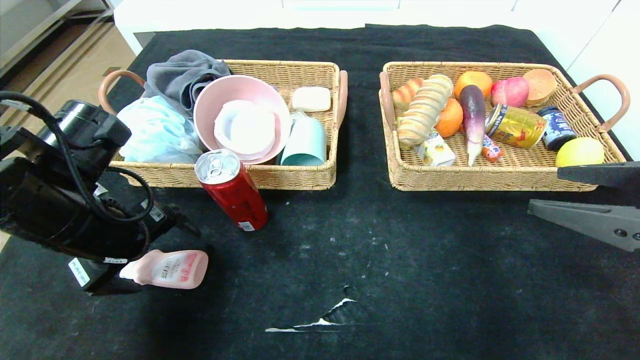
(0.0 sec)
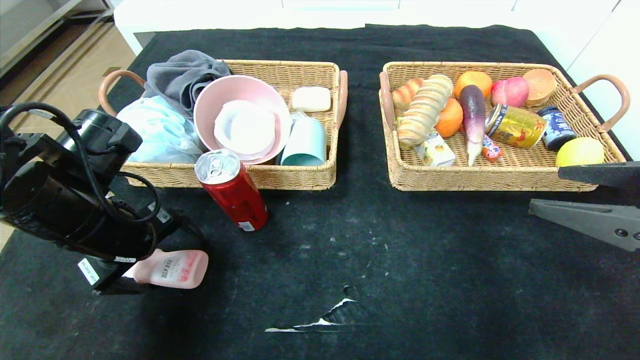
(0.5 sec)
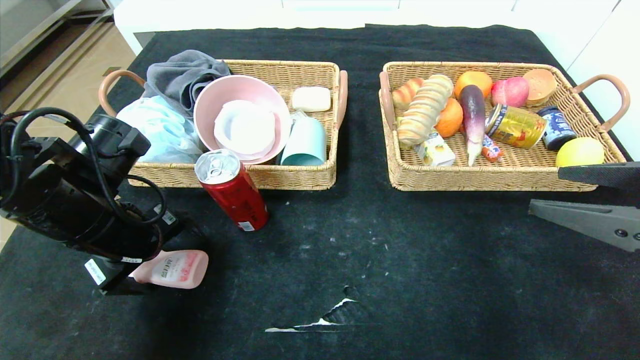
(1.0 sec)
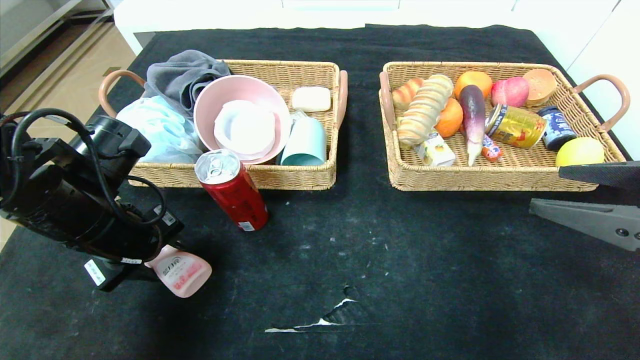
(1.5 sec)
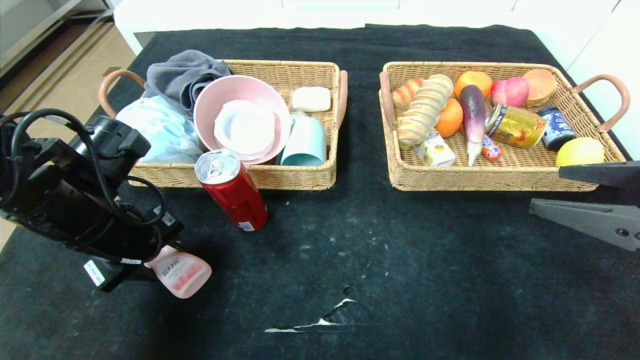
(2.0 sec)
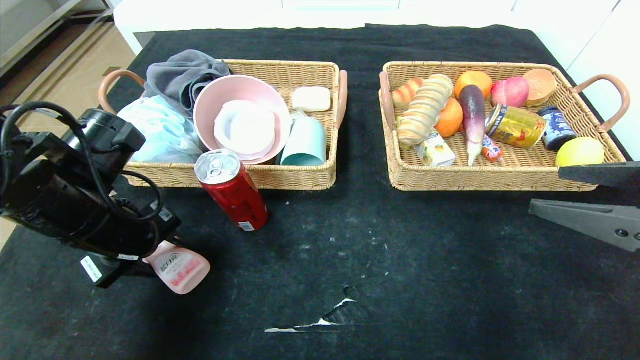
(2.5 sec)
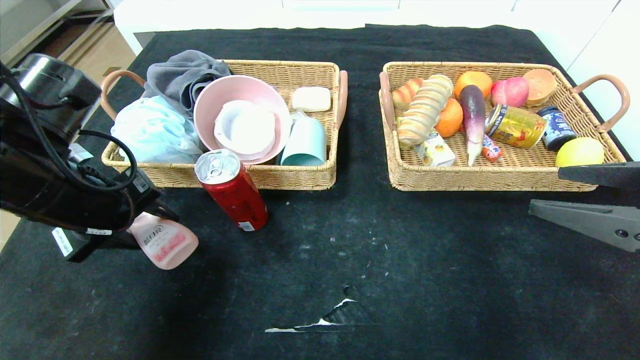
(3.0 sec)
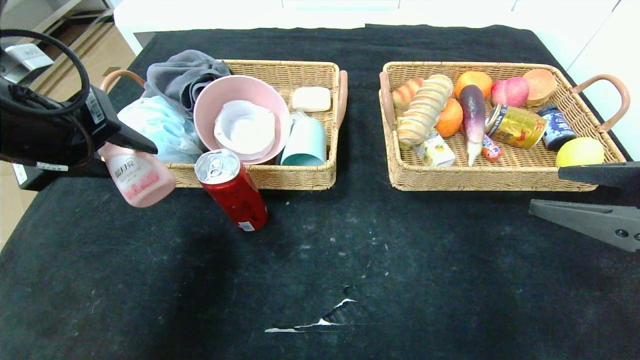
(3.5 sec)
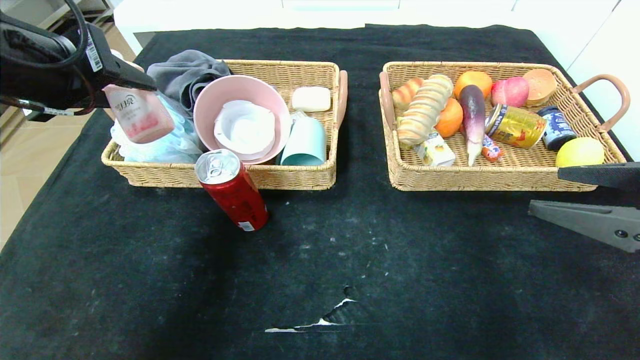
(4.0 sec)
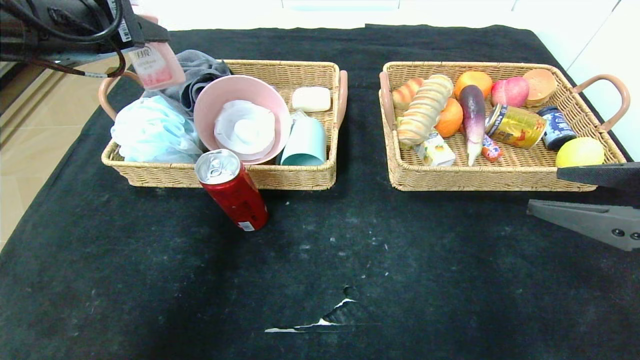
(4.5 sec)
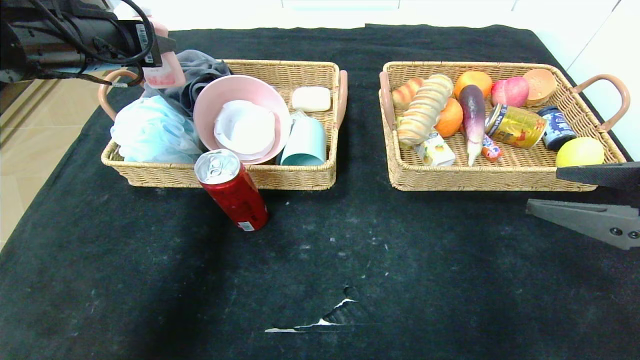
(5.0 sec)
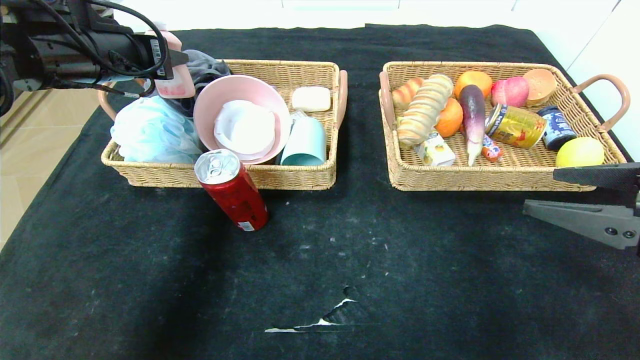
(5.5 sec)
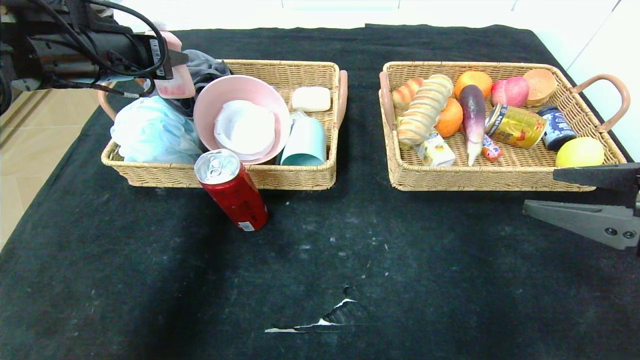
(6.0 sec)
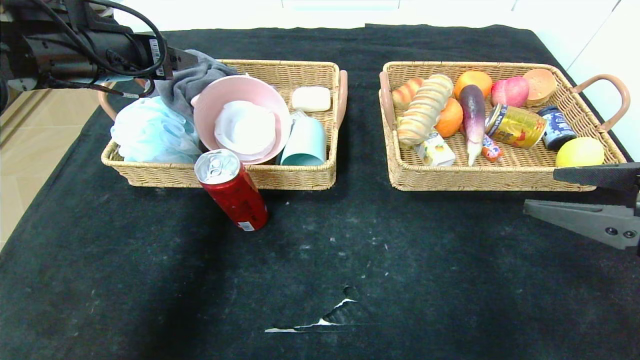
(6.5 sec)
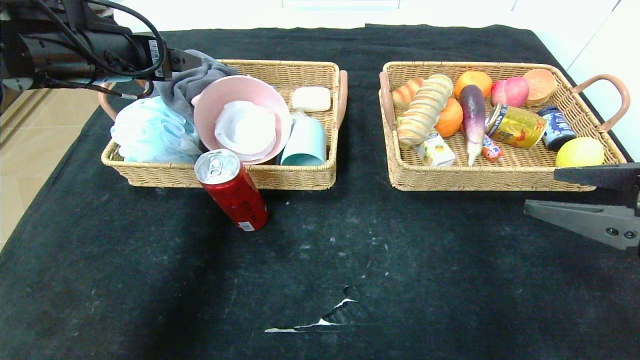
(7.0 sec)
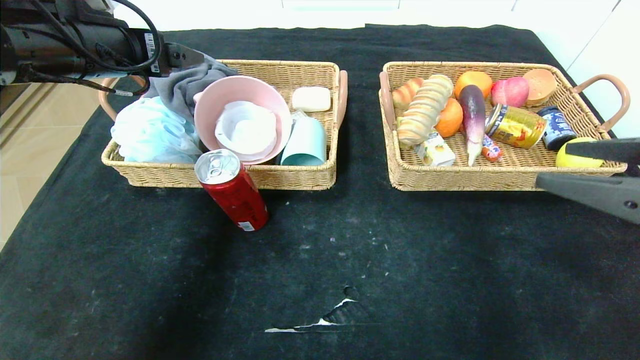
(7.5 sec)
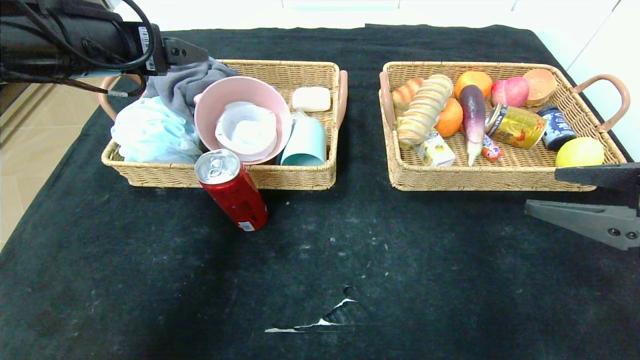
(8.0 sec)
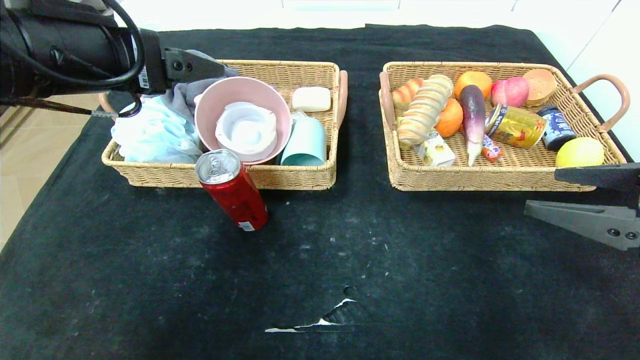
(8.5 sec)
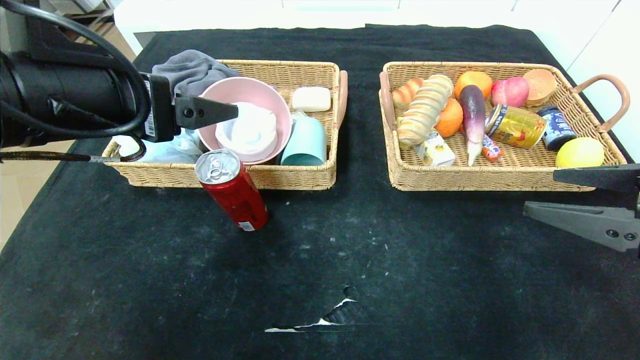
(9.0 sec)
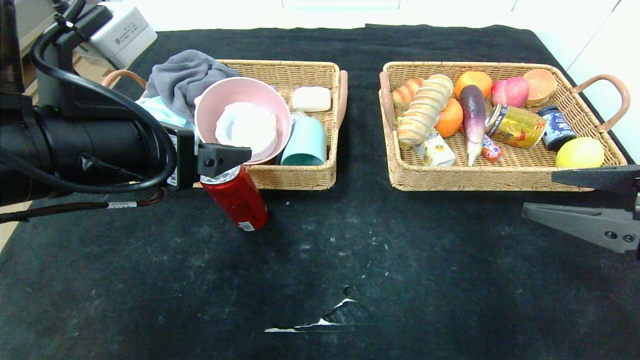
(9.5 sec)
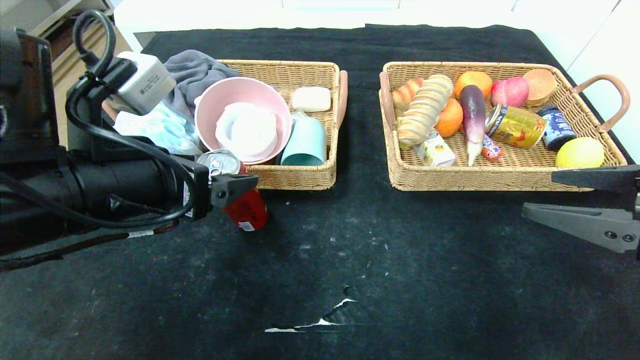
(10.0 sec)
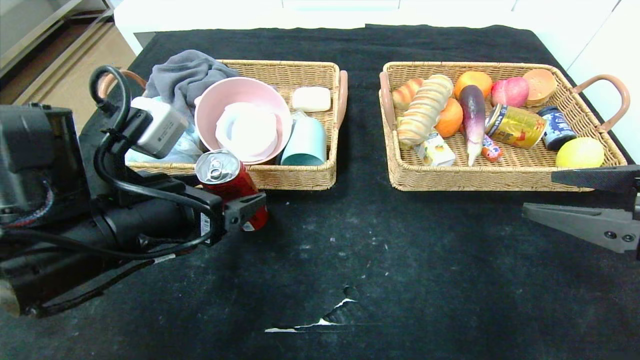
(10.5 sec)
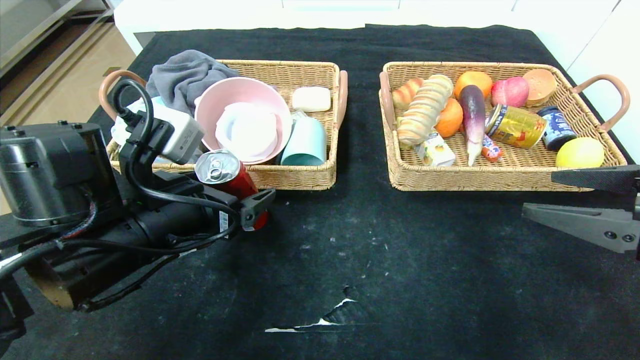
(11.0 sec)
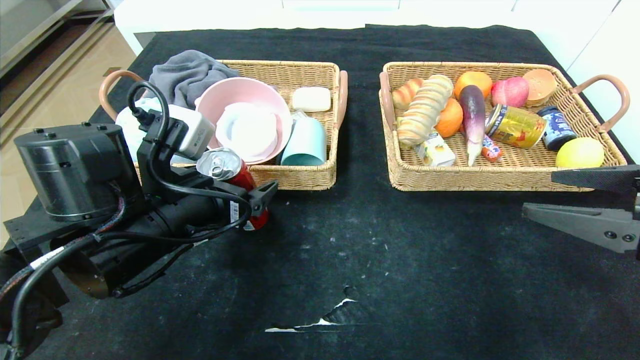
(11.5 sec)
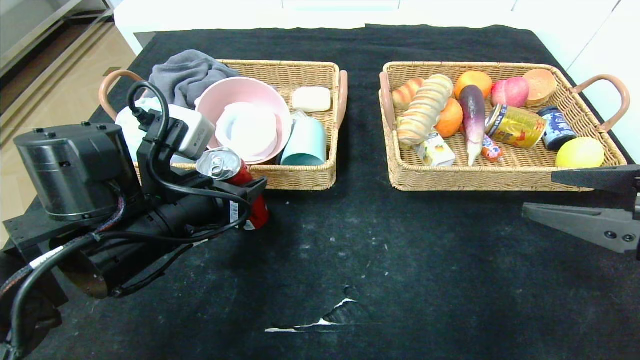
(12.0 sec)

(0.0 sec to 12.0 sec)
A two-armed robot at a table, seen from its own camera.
Step, 0.0 sec - 6.5 sec: Grasp the detergent and put it in the left basket.
0.0 sec - 2.0 sec: The left gripper closes.
2.0 sec - 4.0 sec: The left gripper heads upward, covering about 15 cm.
4.0 sec - 6.0 sec: The left gripper shifts approximately 10 cm forward.
6.0 sec - 8.0 sec: The left gripper shifts by some 5 cm, and opens its fingers.
8.0 sec - 10.0 sec: The left gripper heads downward, backward and to the right, covering roughly 15 cm.
10.0 sec - 12.0 sec: The left gripper goes about 5 cm downward, and closes up.

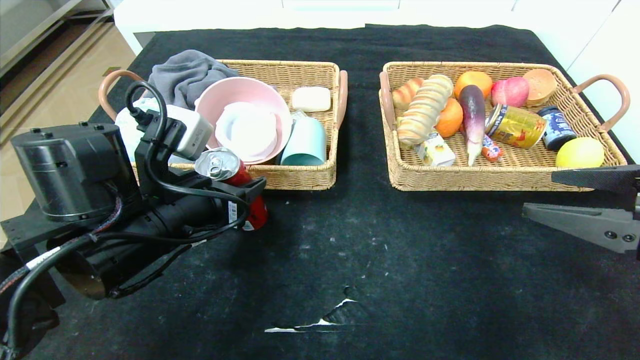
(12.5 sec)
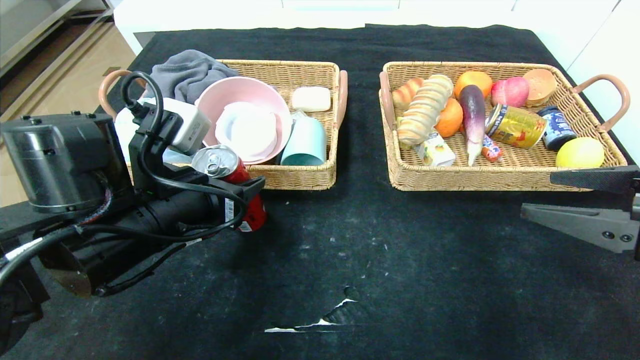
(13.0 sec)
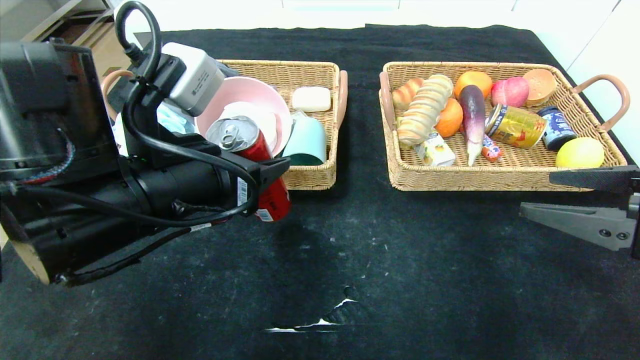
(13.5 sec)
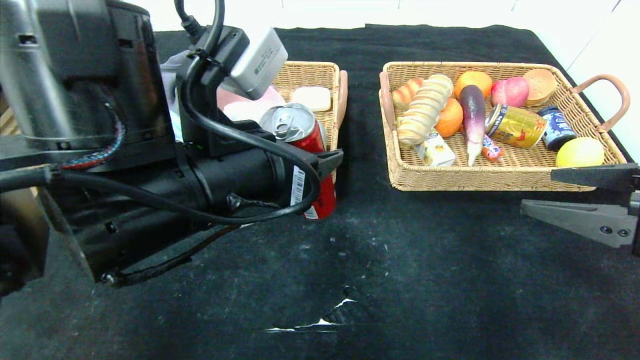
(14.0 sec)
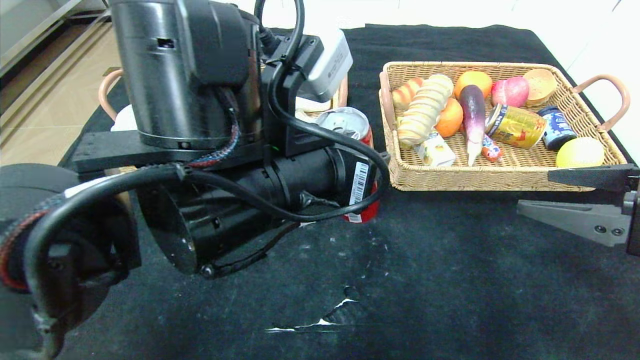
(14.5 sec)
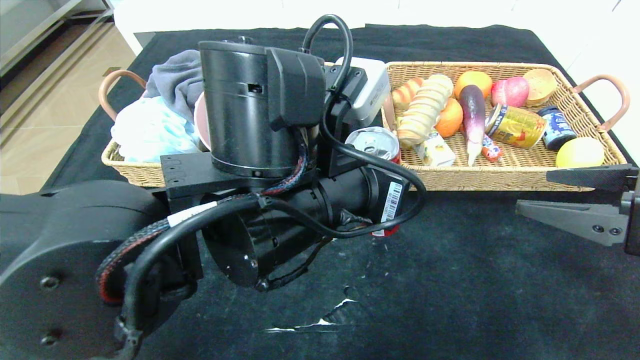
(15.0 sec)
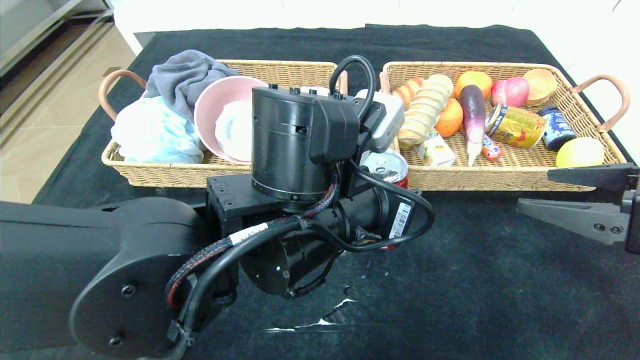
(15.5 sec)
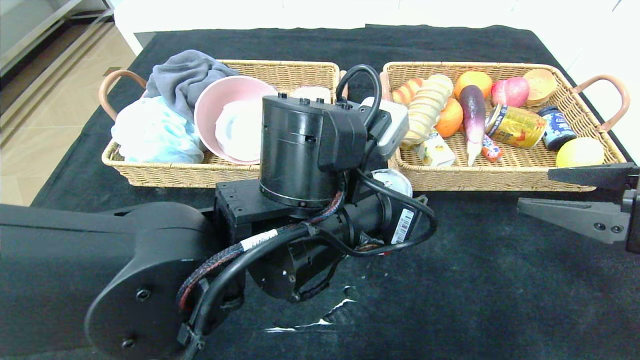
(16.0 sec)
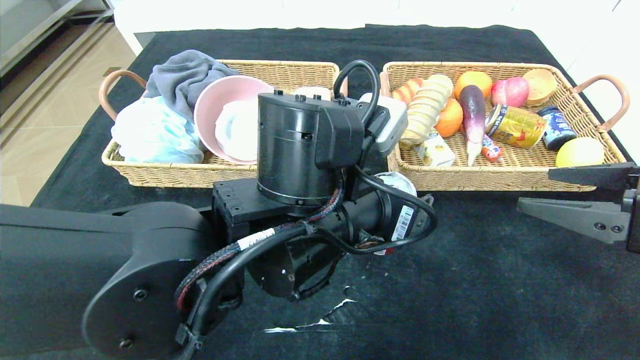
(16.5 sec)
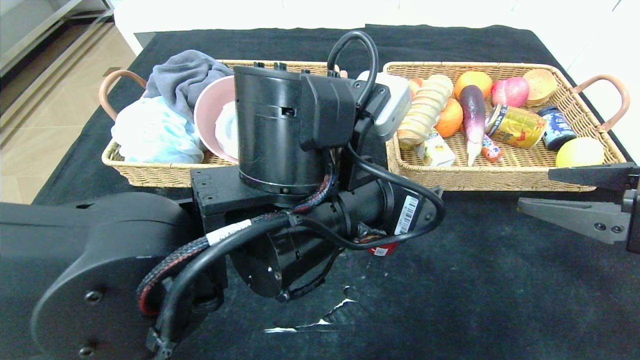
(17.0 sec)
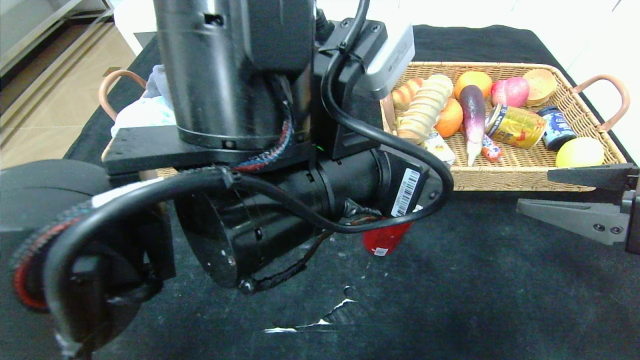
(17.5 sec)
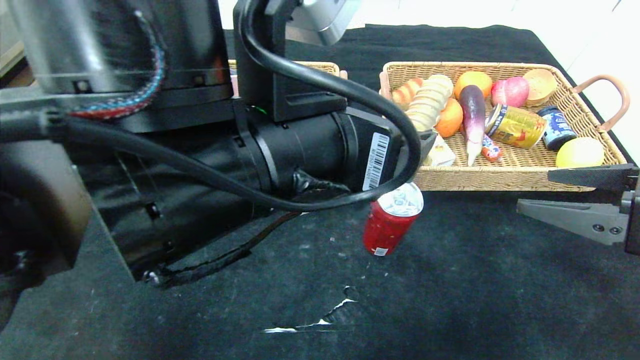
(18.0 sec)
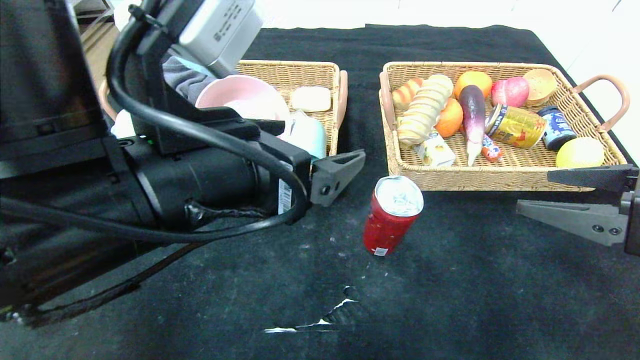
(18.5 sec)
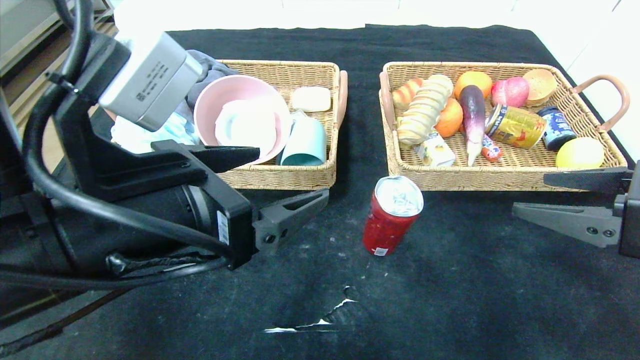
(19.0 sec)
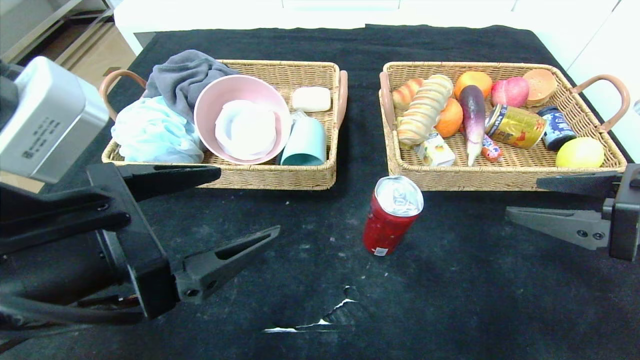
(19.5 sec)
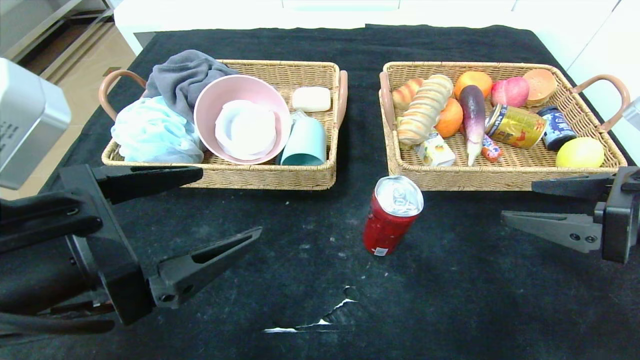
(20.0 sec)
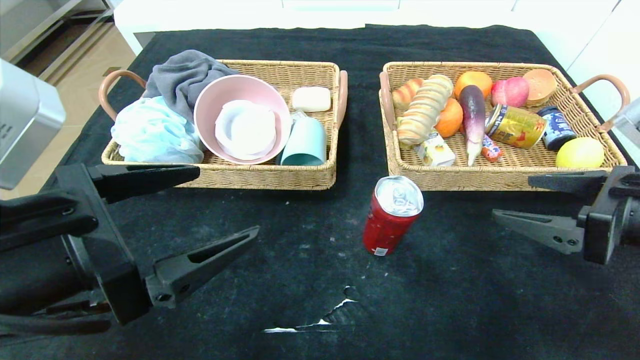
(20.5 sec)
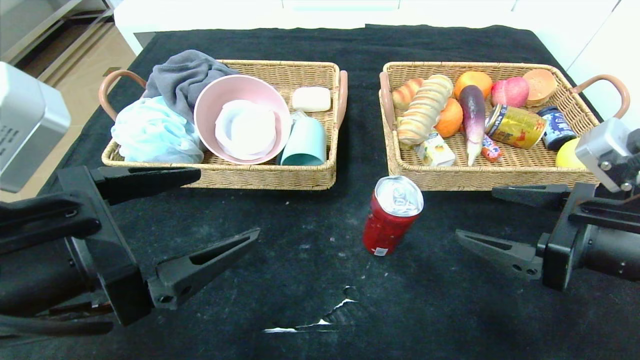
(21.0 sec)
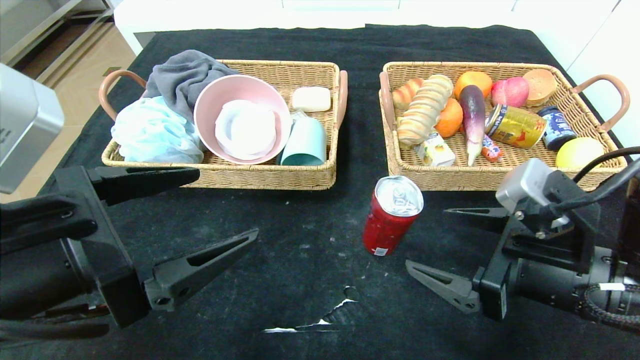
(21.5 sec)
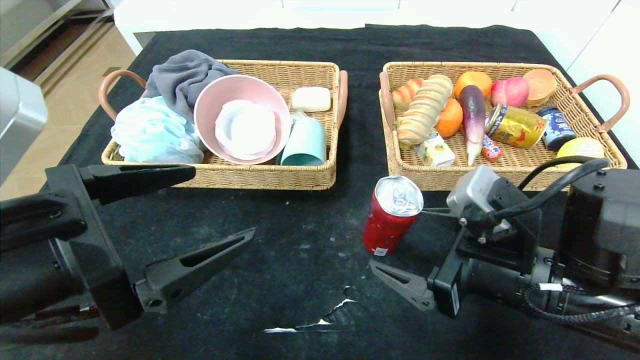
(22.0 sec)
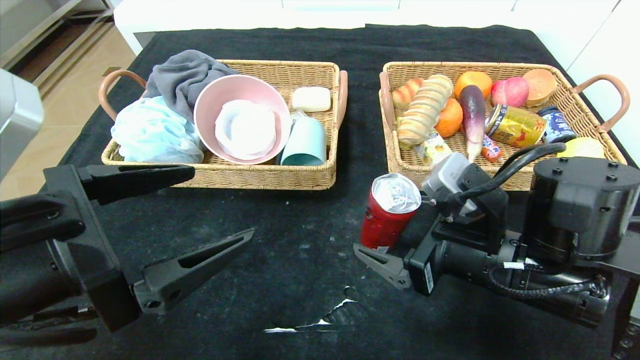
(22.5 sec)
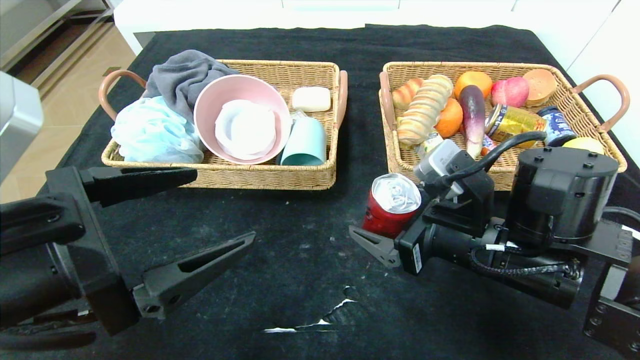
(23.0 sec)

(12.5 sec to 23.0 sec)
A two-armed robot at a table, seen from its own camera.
Step, 12.5 sec - 17.0 sec: Place the canned cola in the center of the table.
12.5 sec - 14.5 sec: The left gripper heads to the right and upward, covering approximately 15 cm.
14.5 sec - 16.5 sec: The left gripper changes place by roughly 5 cm.
16.5 sec - 19.0 sec: The left gripper heads to the left and backward, covering about 15 cm.
19.0 sec - 21.0 sec: The right gripper moves some 5 cm; the left gripper travels to the left by roughly 5 cm.
21.0 sec - 23.0 sec: The right gripper goes approximately 10 cm to the left.
